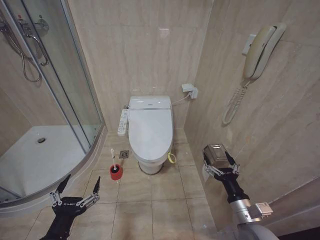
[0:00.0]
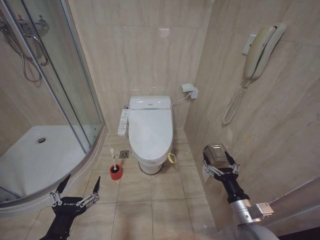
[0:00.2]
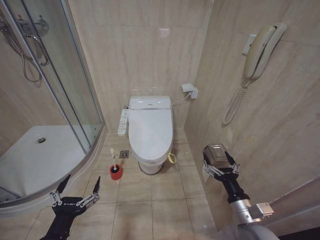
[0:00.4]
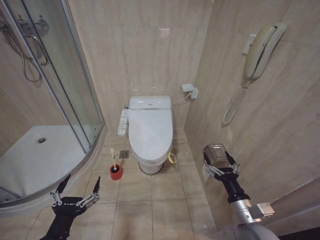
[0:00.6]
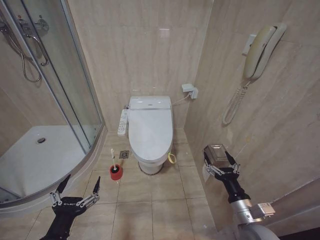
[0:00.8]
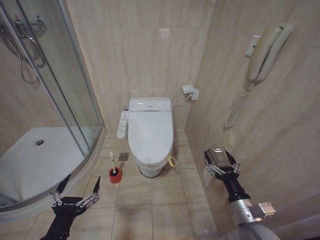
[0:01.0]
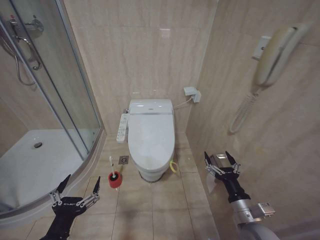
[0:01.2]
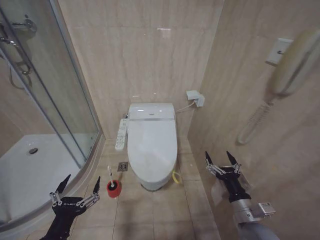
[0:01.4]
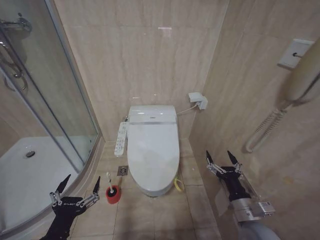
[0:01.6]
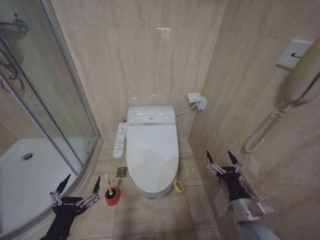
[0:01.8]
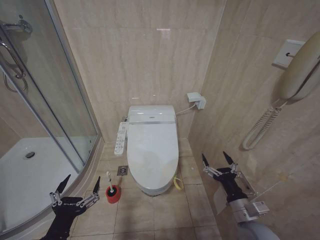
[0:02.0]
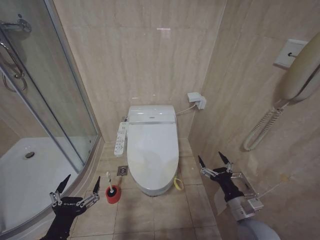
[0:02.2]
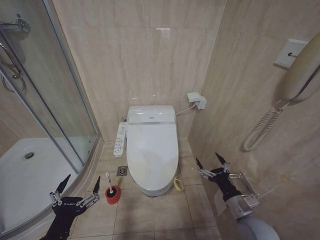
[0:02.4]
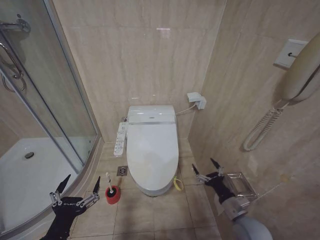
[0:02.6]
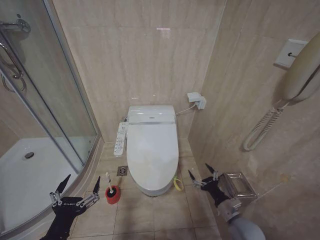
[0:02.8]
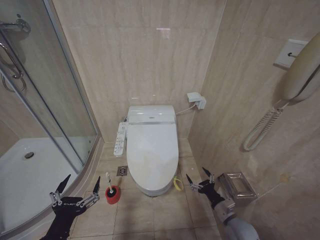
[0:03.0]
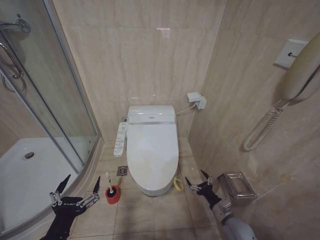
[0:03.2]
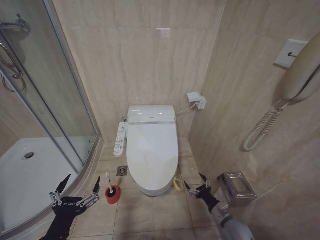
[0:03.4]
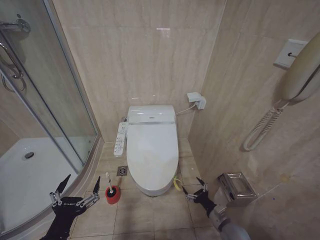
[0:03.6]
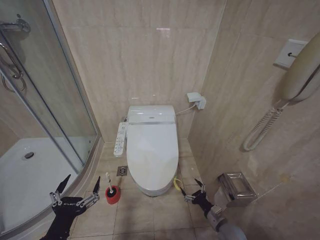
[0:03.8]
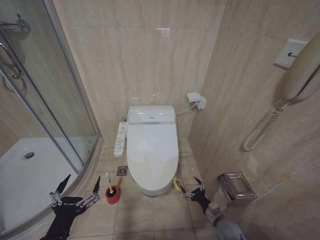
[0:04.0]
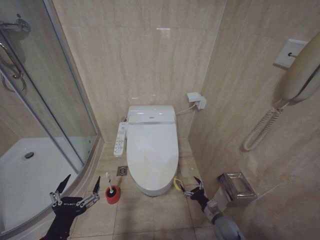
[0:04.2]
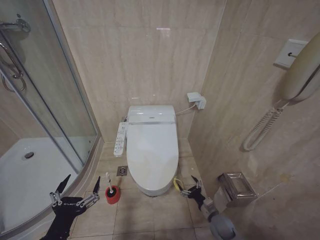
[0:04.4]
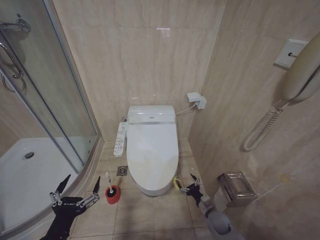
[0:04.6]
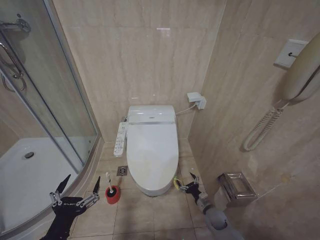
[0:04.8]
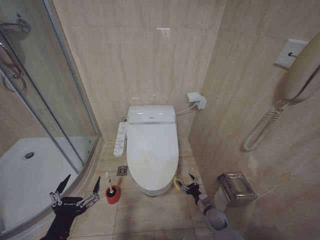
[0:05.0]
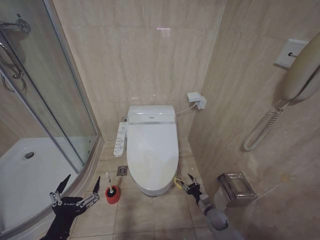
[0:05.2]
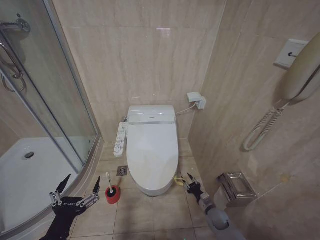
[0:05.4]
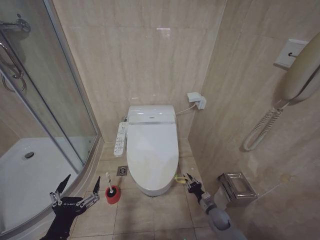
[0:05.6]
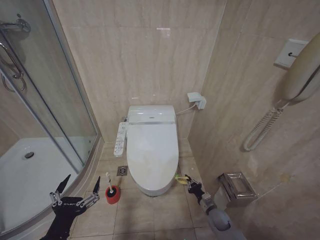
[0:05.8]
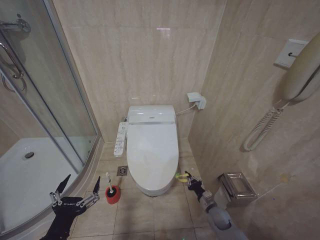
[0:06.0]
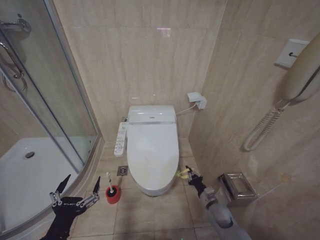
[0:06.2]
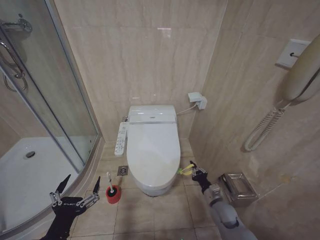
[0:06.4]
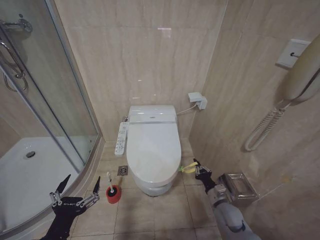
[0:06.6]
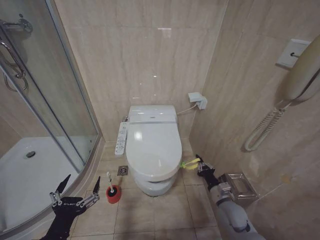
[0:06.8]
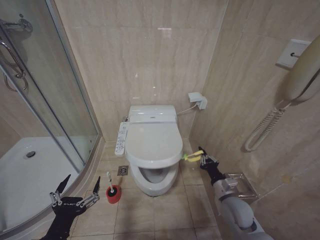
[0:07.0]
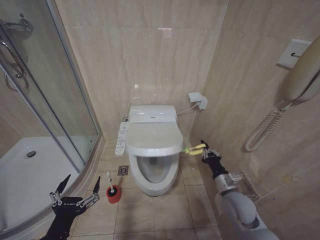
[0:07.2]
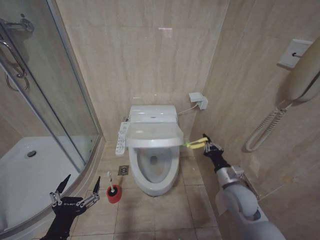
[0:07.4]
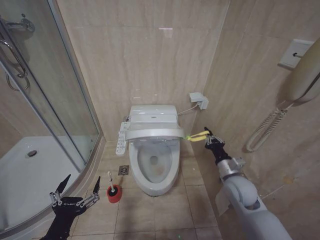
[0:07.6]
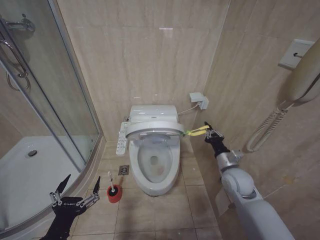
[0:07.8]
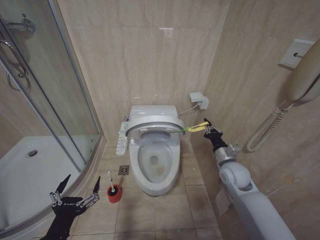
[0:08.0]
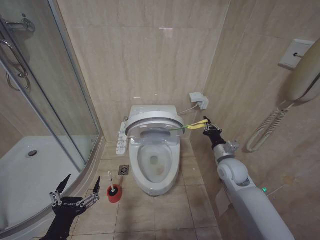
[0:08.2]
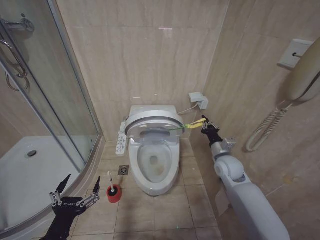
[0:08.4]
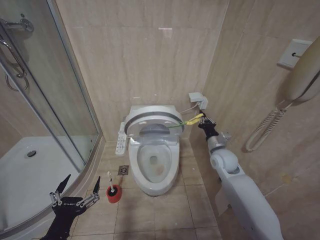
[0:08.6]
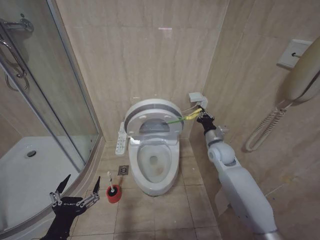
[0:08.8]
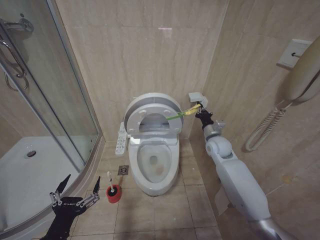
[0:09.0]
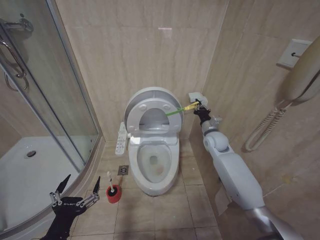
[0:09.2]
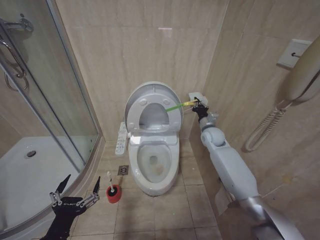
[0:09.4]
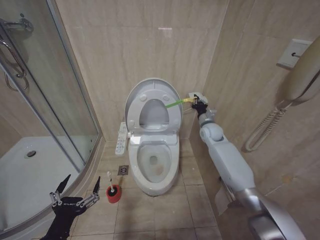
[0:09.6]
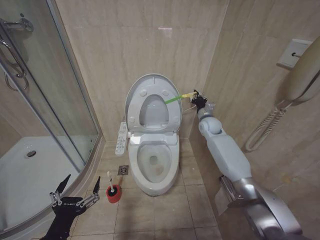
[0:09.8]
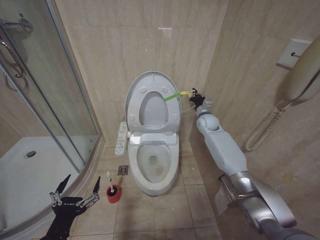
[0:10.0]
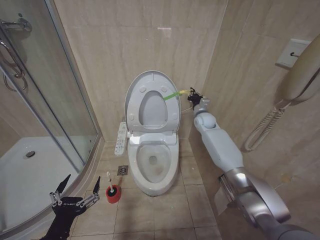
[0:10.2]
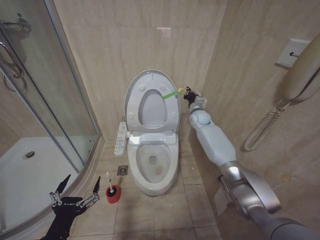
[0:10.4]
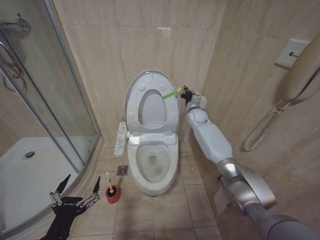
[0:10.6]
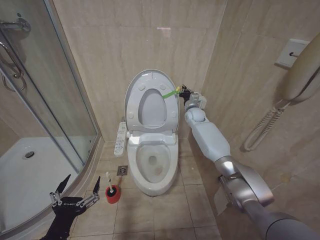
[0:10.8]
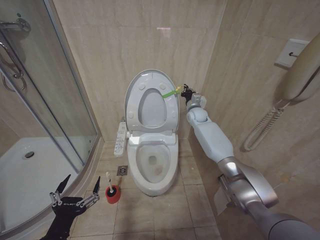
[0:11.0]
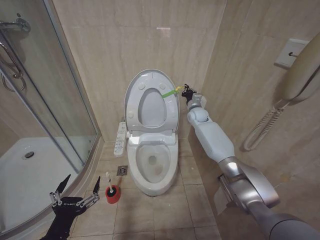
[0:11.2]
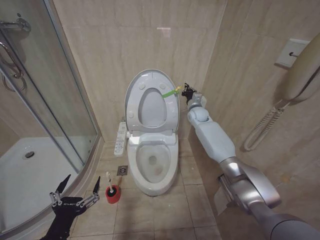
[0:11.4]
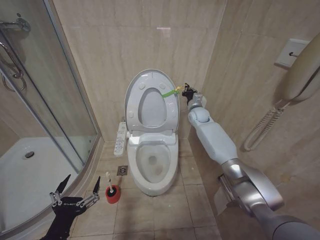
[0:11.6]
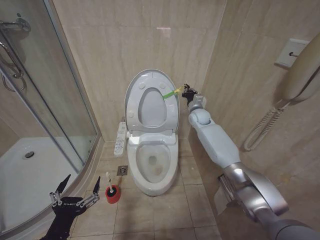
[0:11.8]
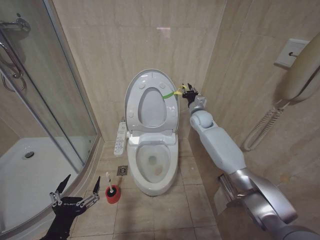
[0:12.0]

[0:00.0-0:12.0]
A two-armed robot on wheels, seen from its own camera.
Task of the whole recording: Open the toilet lid, clean the toilet bowl with a toilet brush, close the toilet lid, and flush.
0:01.6 to 0:03.0: The right gripper travels downward by roughly 10 cm.
0:03.0 to 0:04.4: The right gripper heads downward, covering about 10 cm.
0:04.4 to 0:06.0: The right gripper closes its fingers.
0:06.0 to 0:07.6: The right gripper goes roughly 25 cm upward.
0:07.6 to 0:09.0: The right gripper heads forward, covering some 15 cm.
0:09.0 to 0:10.4: The right gripper goes some 15 cm forward.
0:10.4 to 0:12.0: There are only small adjustments of the grippers.

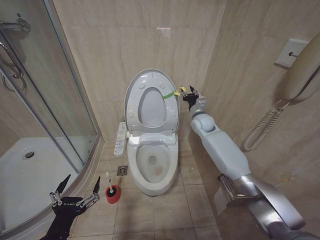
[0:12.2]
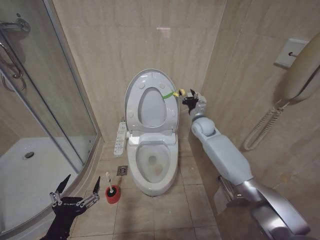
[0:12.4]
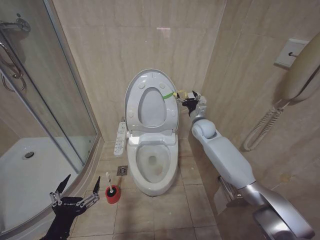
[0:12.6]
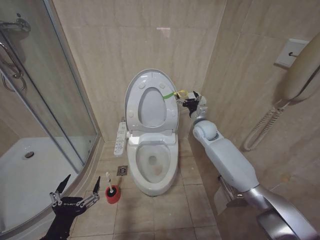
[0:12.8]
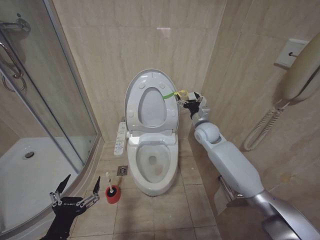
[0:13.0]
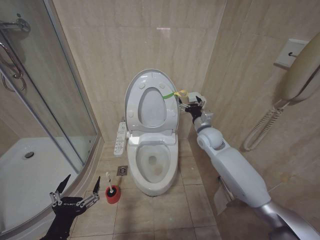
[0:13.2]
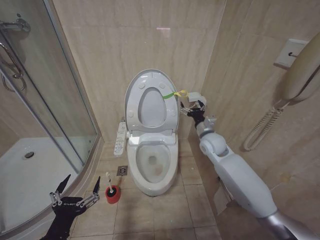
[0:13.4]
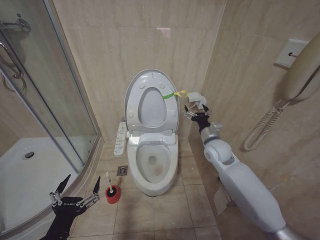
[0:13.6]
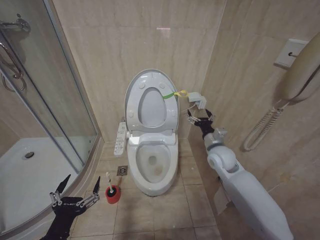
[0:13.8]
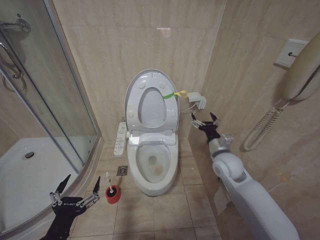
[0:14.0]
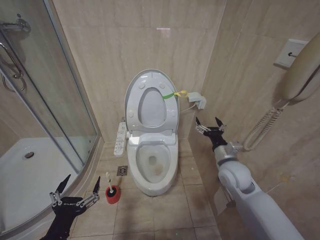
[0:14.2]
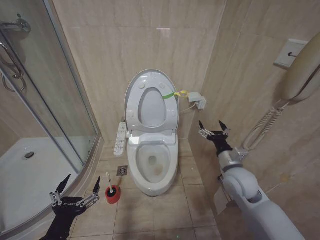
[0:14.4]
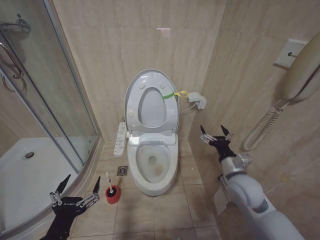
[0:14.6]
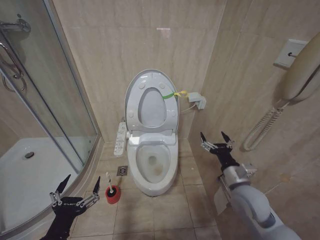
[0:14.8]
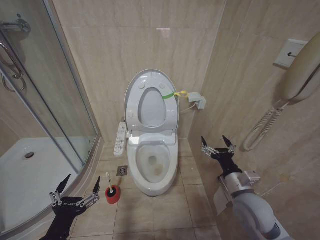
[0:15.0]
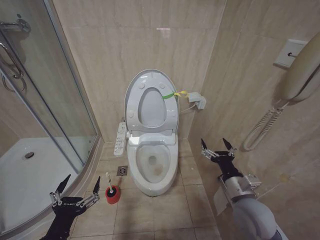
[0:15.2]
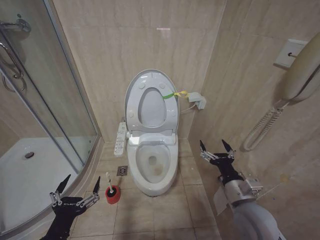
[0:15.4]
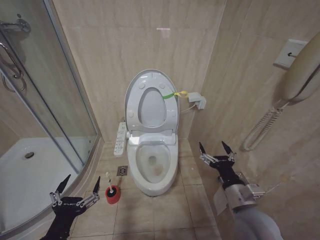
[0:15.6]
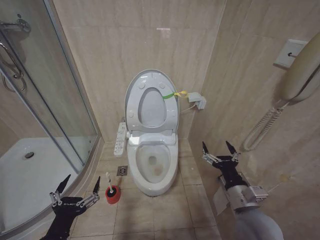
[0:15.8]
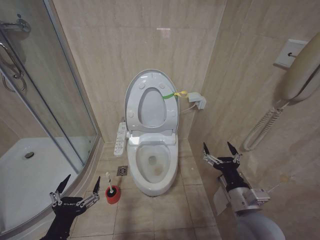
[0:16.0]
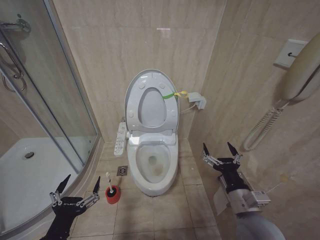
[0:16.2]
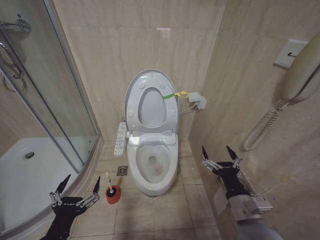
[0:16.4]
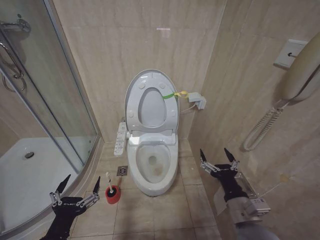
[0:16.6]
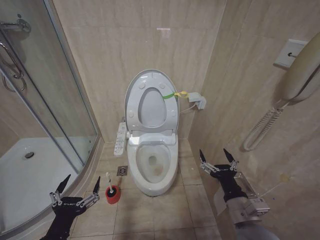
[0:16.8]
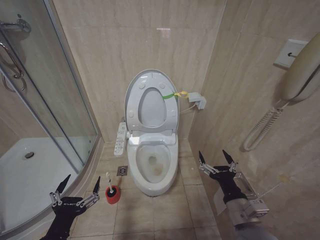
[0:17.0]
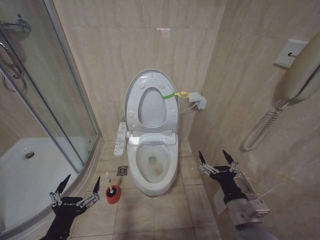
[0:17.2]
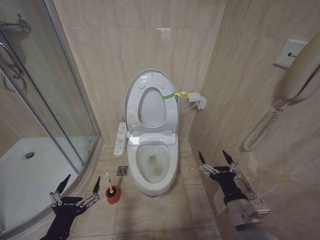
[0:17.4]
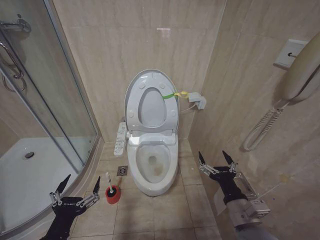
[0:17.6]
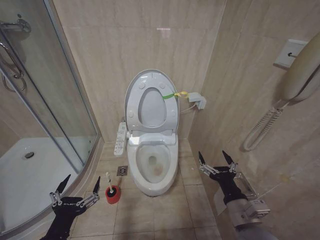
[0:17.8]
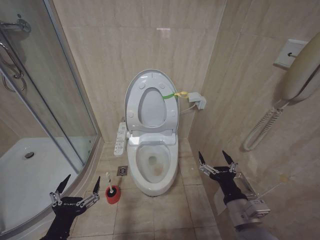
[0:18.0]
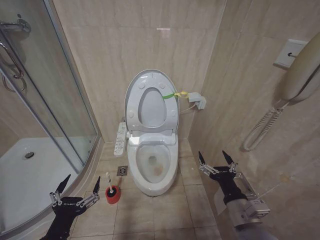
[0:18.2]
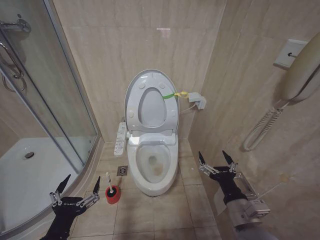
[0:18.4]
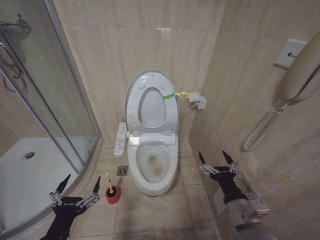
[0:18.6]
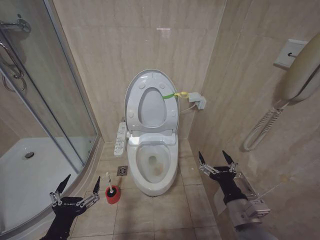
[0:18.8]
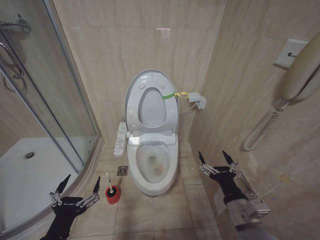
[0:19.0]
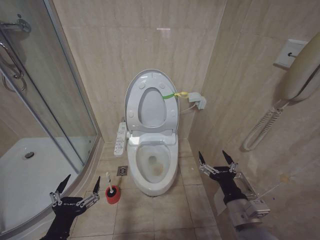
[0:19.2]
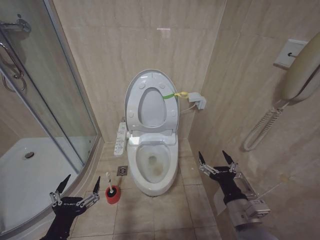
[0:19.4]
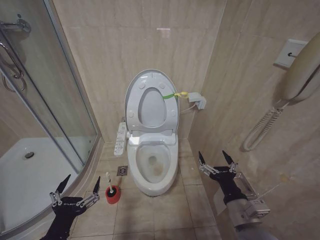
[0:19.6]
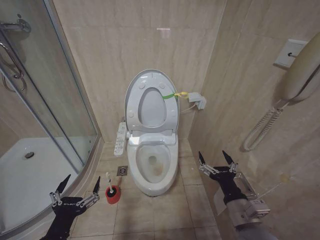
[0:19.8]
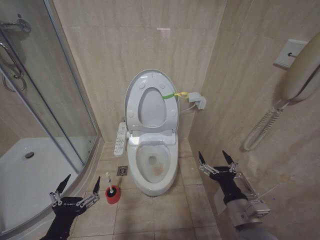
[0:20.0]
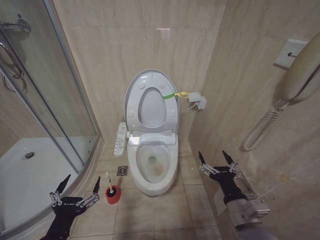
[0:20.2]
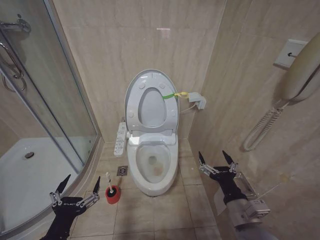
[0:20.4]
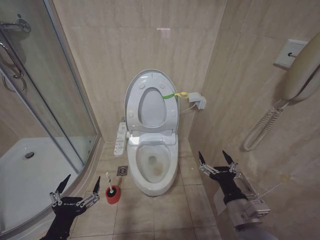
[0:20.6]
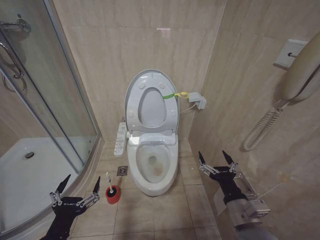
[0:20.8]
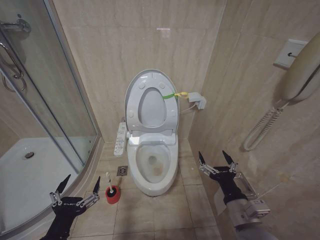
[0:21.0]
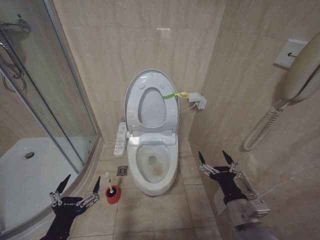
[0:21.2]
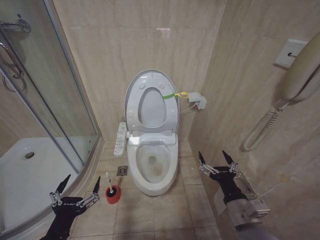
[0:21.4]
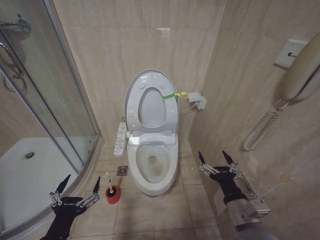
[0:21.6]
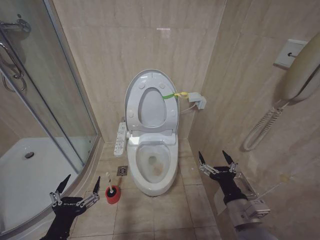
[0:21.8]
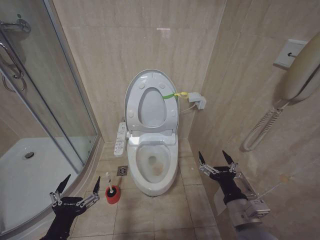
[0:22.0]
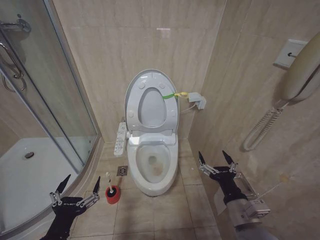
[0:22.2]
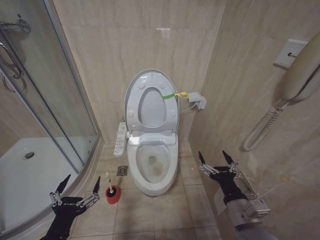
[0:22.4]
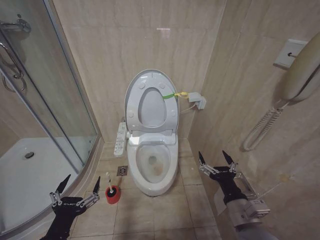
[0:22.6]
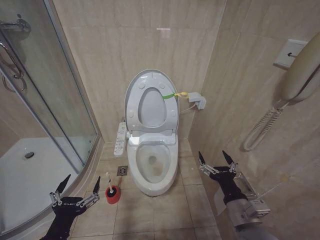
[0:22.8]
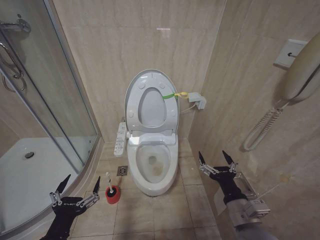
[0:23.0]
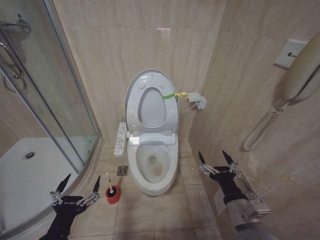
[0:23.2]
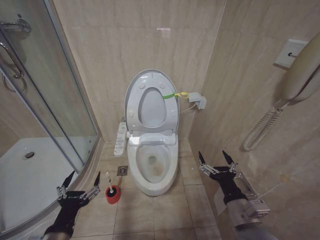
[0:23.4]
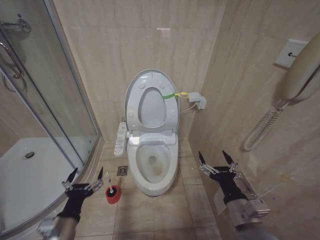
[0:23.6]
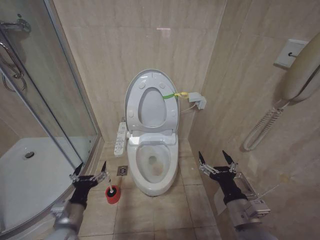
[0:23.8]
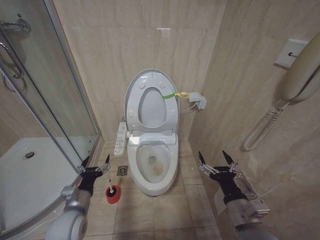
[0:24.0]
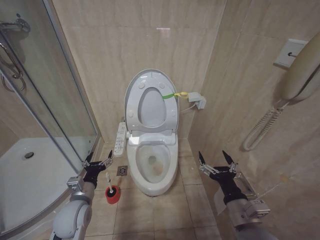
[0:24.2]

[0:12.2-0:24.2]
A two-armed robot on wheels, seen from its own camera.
Task of the whole recording: Open the toilet lid, clean the toilet bowl with a toilet brush, close the toilet lid, and flush.
0:12.2 to 0:13.8: The right gripper heads backward, covering some 15 cm, and opens up.
0:13.8 to 0:15.2: The right gripper shifts roughly 20 cm backward.
0:15.2 to 0:16.6: The right gripper moves backward, some 5 cm.
0:16.6 to 0:22.6: Both grippers stay about where they are.
0:22.6 to 0:24.2: The left gripper moves forward, about 20 cm.
